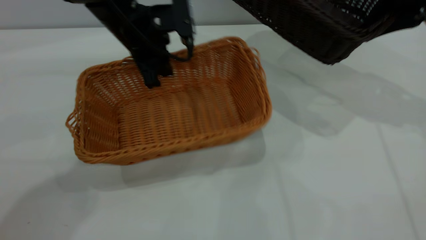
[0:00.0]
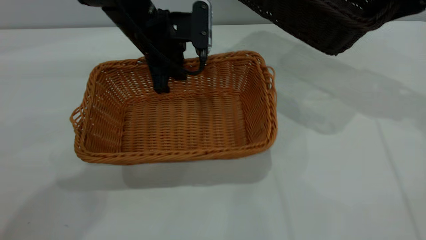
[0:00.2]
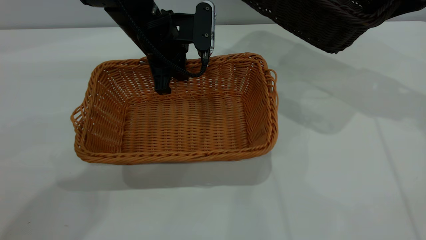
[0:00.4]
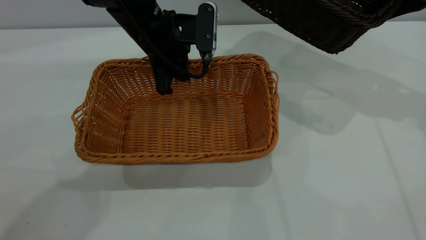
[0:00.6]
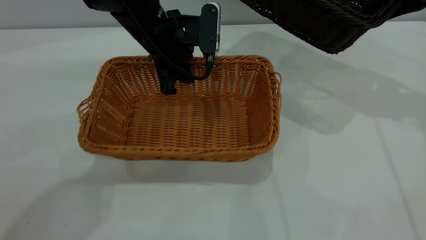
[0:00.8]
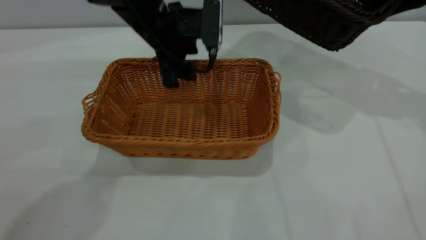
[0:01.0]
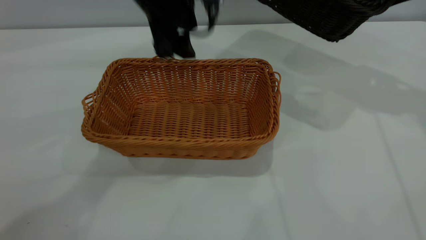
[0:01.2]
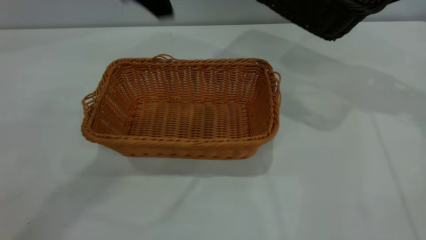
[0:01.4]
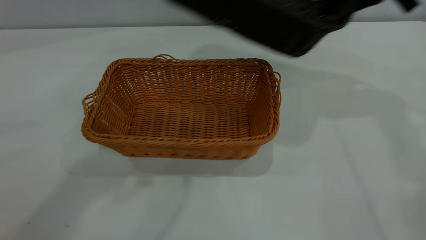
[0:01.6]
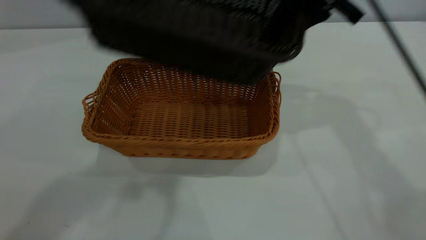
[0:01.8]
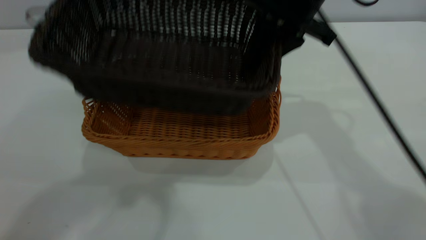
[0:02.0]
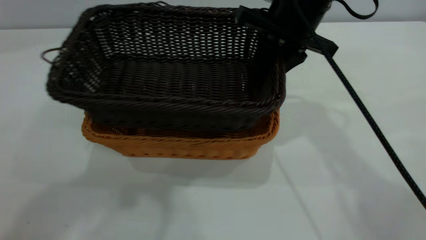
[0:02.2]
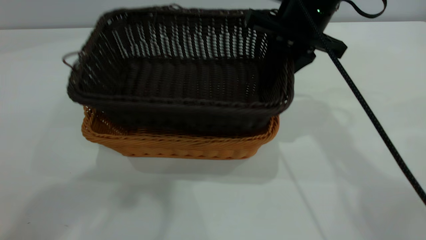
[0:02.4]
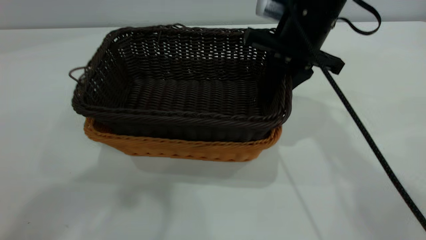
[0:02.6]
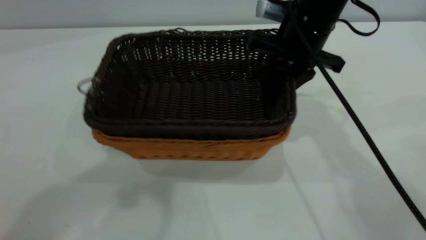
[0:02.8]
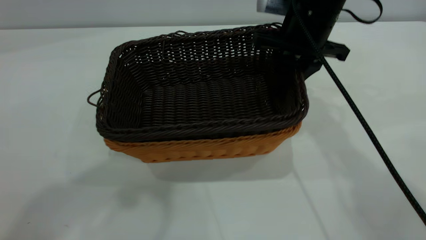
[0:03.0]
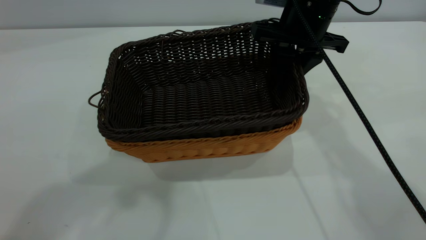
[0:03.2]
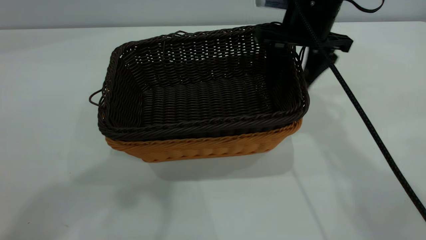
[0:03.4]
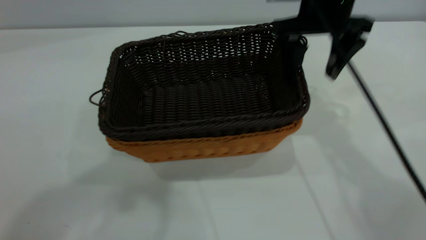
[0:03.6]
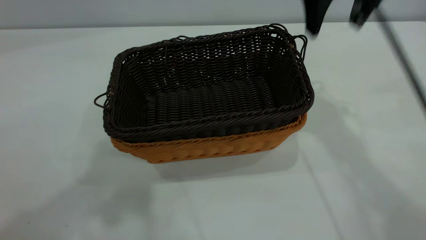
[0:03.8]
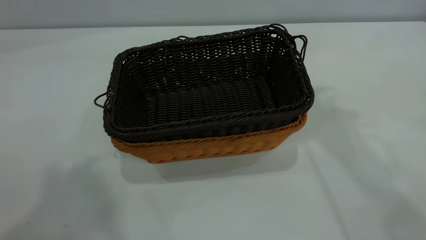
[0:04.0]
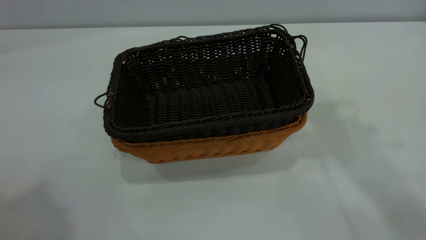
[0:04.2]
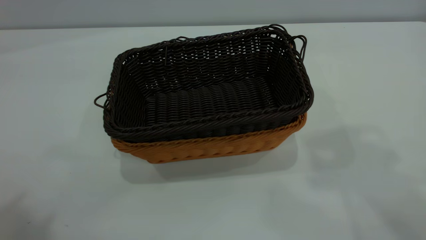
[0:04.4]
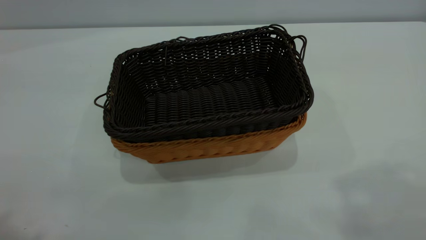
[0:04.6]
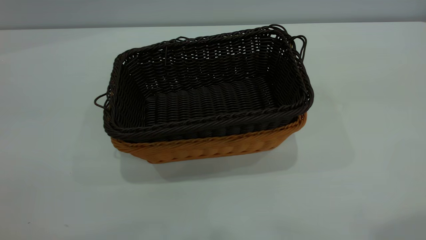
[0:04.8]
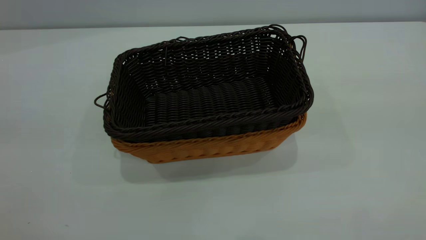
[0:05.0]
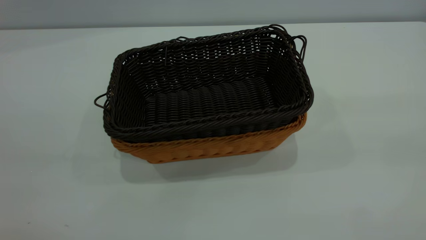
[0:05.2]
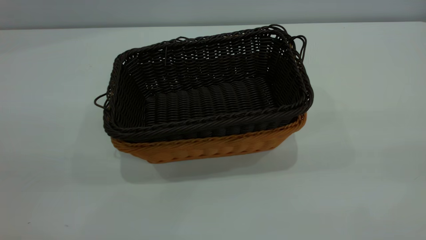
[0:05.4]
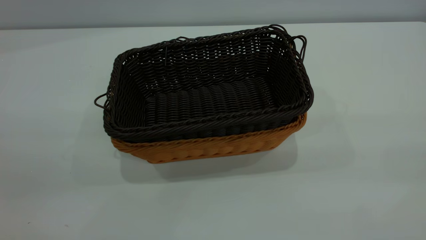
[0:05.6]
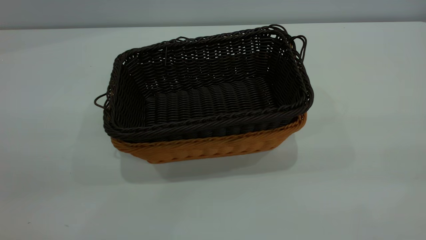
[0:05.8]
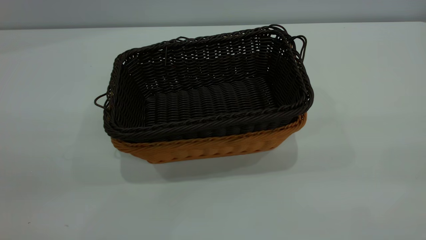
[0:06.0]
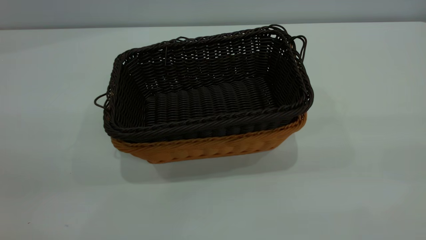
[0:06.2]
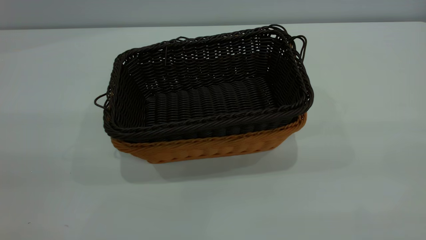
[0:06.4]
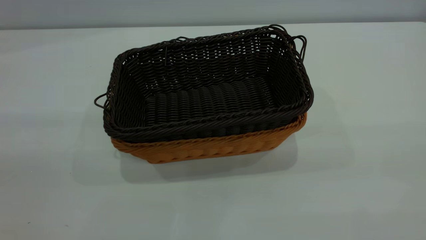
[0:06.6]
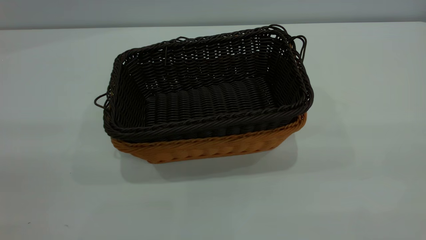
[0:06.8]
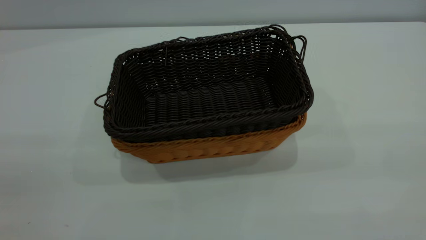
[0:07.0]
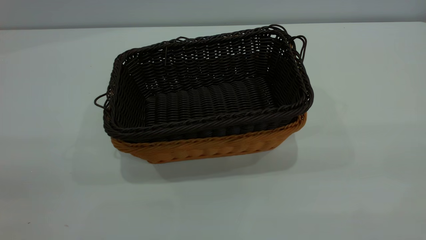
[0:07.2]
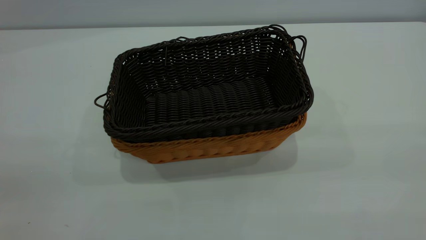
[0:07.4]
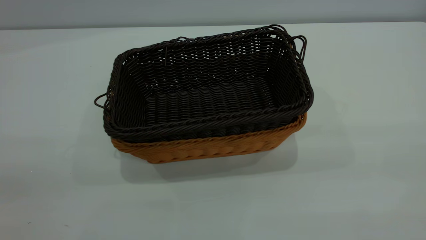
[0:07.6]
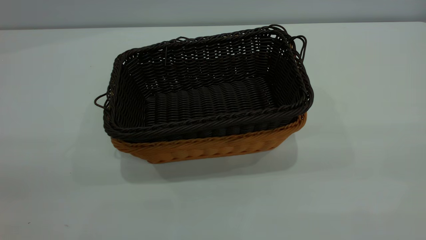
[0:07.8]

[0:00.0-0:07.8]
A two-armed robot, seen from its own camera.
Task of the whole recording: the left gripper grasp the brown basket and place it in the center of the table, the right gripper grasp the black basket and place it inside the brown one.
Step, 0:00.0 to 0:01.2: Place the light-colored basket in the center.
Step, 0:01.4 to 0:03.6: Place the dark basket on top of the light basket.
0:00.0 to 0:01.6: The left gripper moves upward and backward, roughly 30 cm, and opens; the right gripper is displaced to the left by about 10 cm.
0:01.6 to 0:03.2: The left gripper shifts some 5 cm upward; the right gripper is displaced to the left and downward by about 10 cm.
0:03.2 to 0:04.6: The left gripper travels backward and to the left by roughly 20 cm. Meanwhile the right gripper goes approximately 35 cm upward and backward, and opens its fingers.
